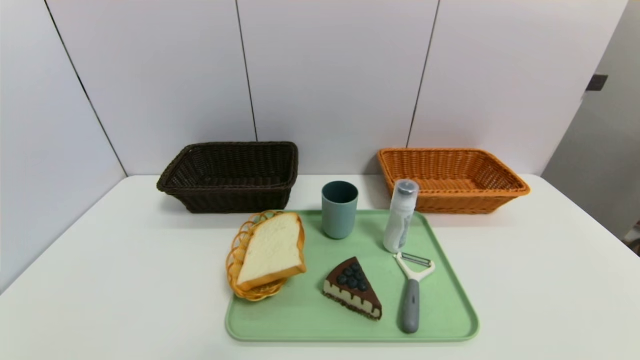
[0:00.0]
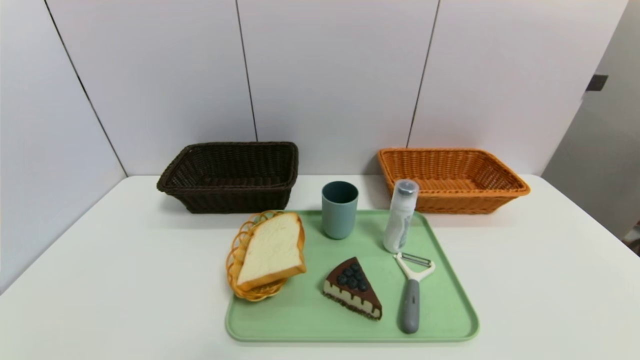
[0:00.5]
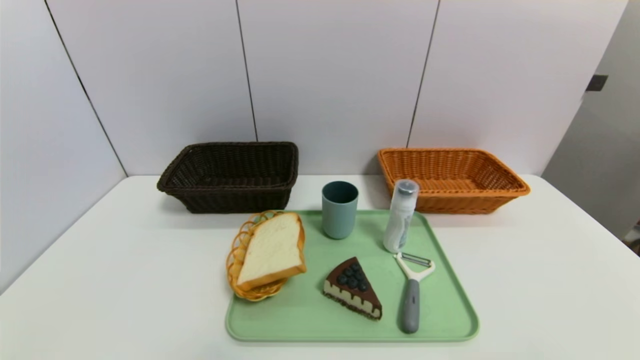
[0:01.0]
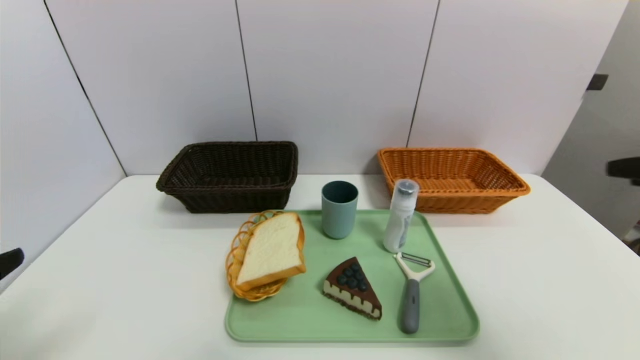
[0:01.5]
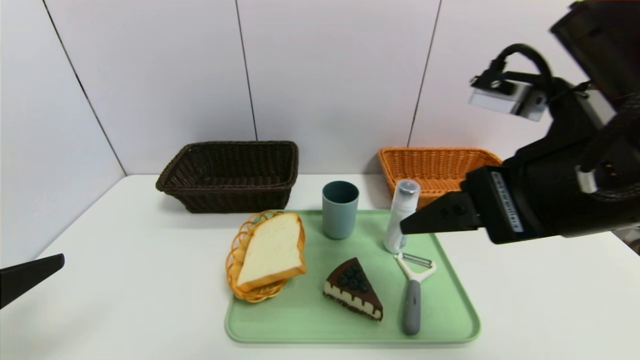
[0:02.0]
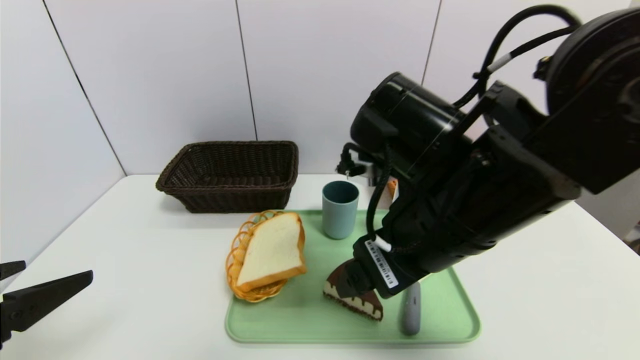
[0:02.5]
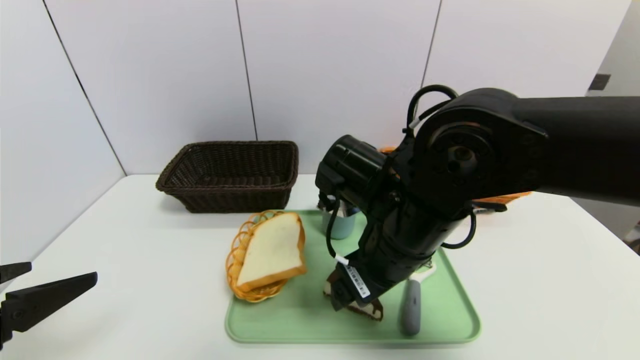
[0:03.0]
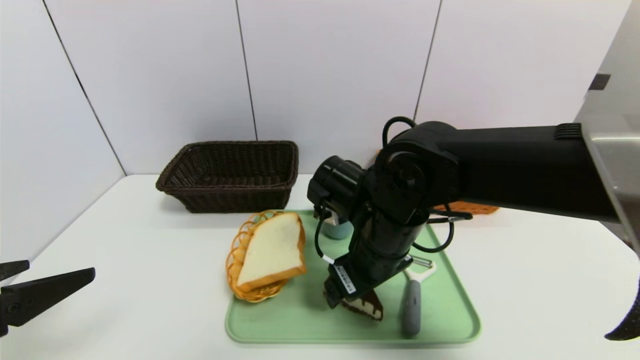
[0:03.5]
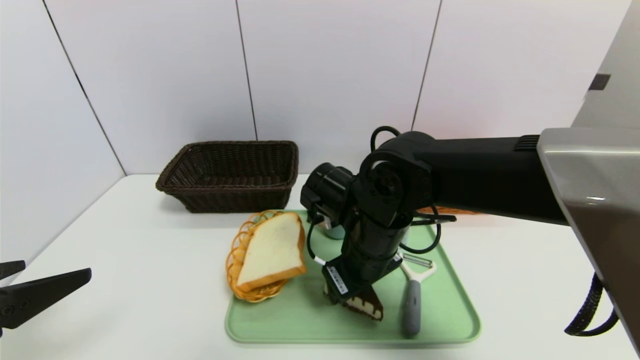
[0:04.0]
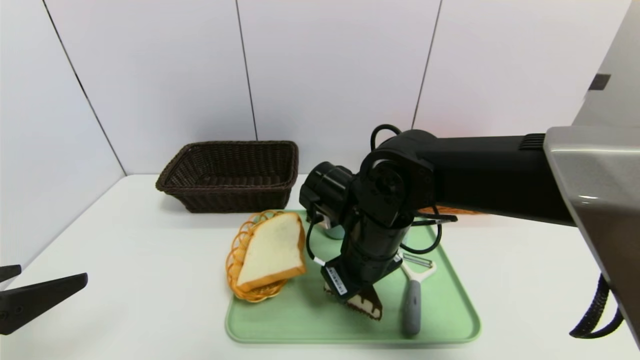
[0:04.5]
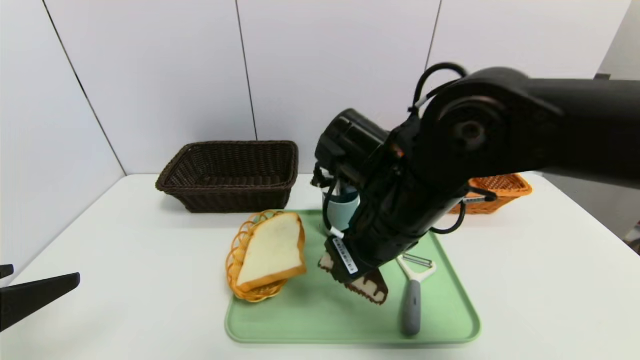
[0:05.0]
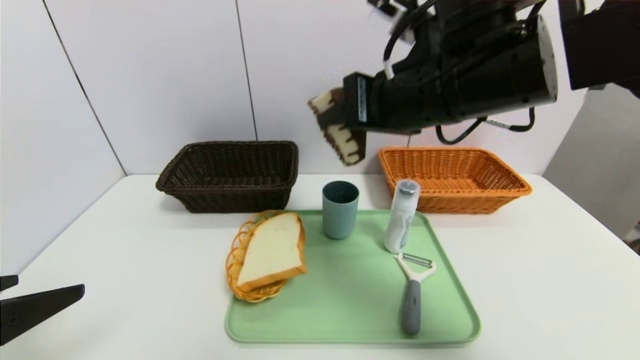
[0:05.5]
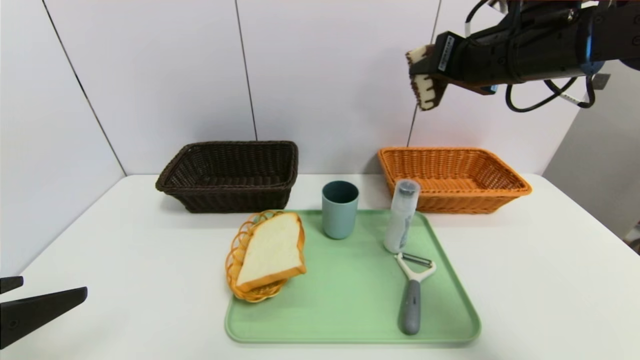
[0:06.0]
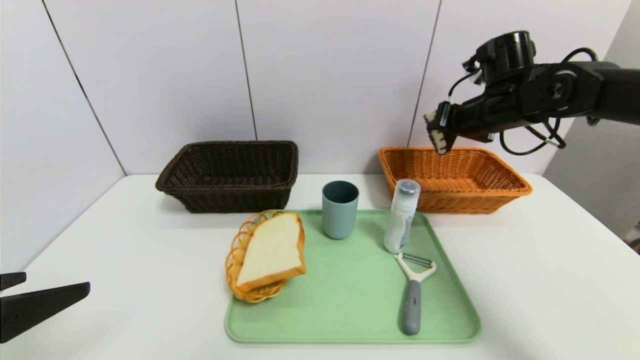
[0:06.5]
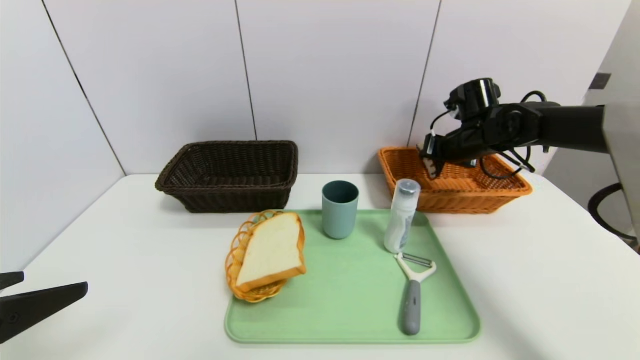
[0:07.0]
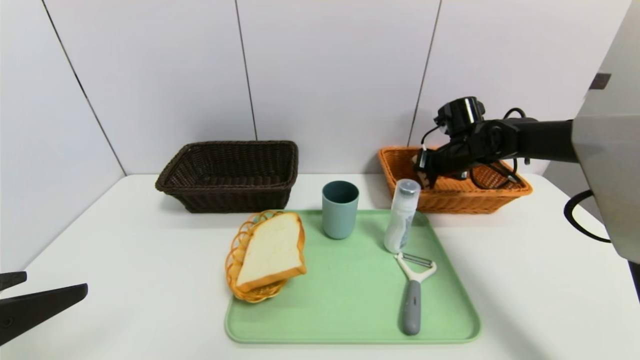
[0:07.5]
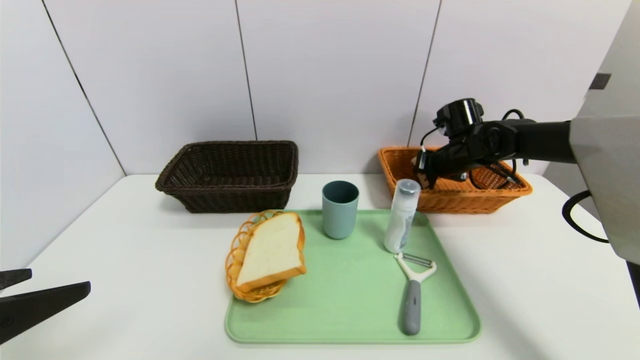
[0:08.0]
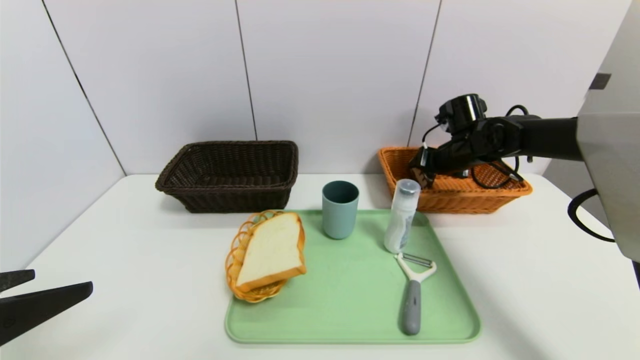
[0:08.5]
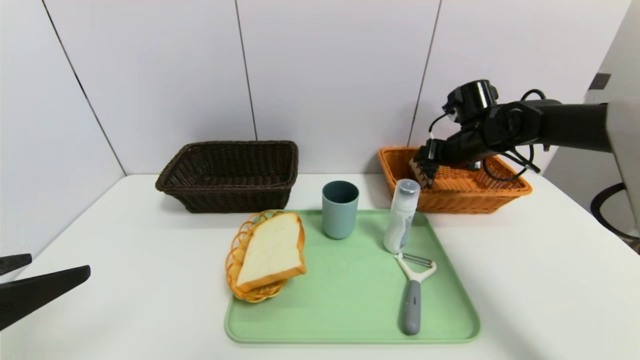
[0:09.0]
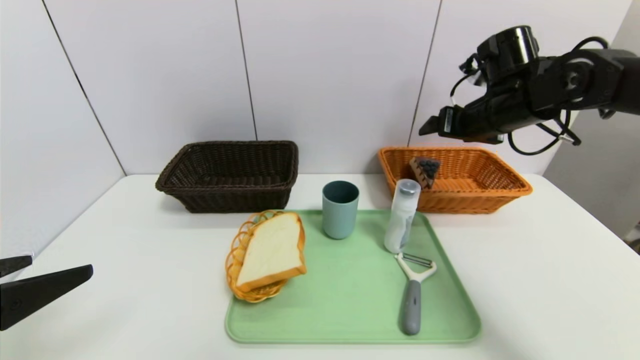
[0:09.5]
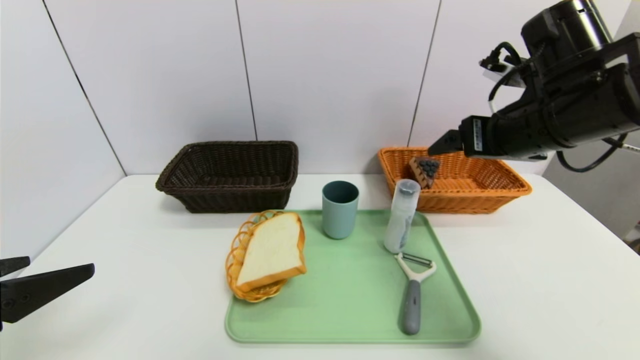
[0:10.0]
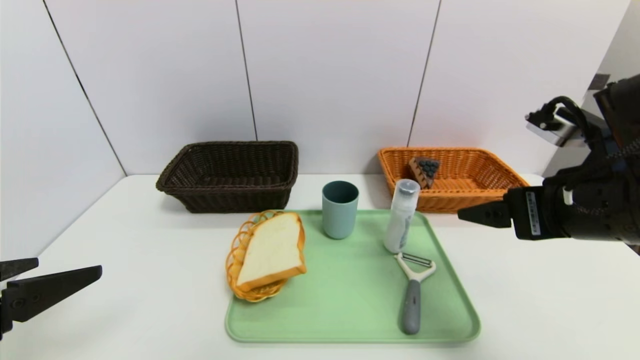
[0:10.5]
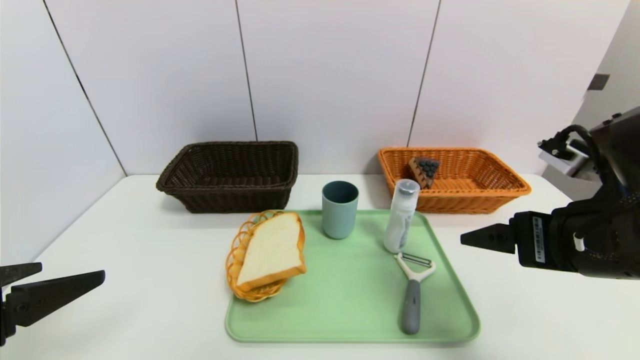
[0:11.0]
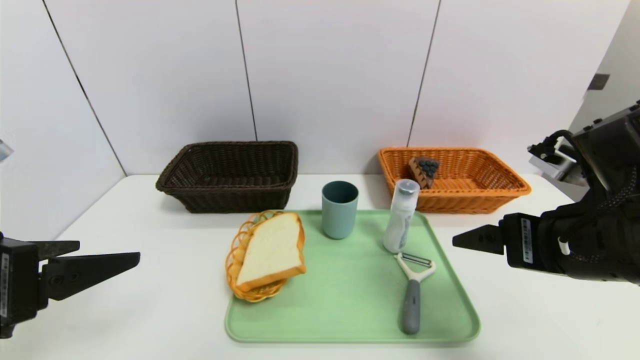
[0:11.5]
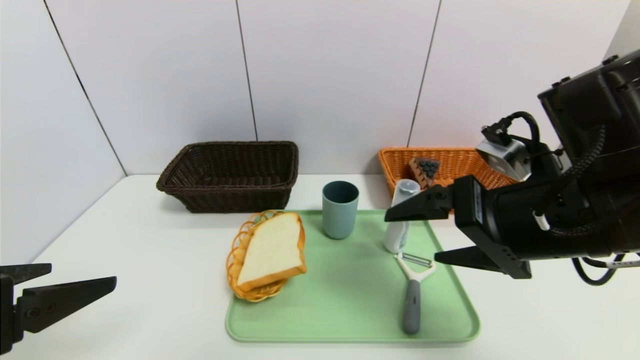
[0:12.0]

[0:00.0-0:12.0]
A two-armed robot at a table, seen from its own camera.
Task of the whole recording: place the food in the right basket with the right gripper, and place the non food items in the left basket with the left gripper.
Step, 0:00.0 to 0:08.5: Grasp the triangle cake and put it in the right basket.
0:00.0 to 0:02.0: The right gripper is displaced upward, forward and to the left by approximately 35 cm. The left gripper goes about 20 cm upward and forward.
0:02.0 to 0:04.0: The right gripper moves downward, to the left and forward, about 20 cm.
0:04.0 to 0:06.0: The right gripper shifts about 25 cm upward and to the right.
0:06.0 to 0:08.0: The right gripper shifts about 25 cm downward and forward.
0:08.0 to 0:10.0: The right gripper moves backward and upward, approximately 25 cm, and opens its fingers.
0:10.0 to 0:12.0: The right gripper moves backward, some 10 cm.

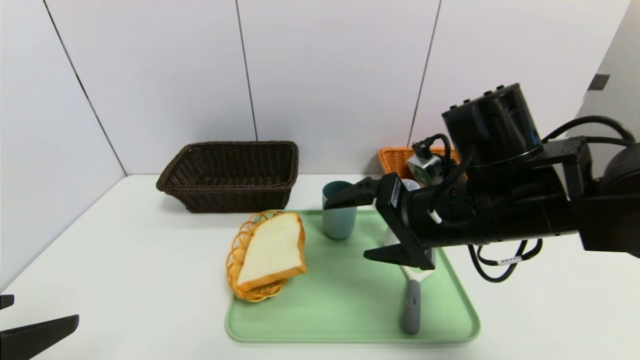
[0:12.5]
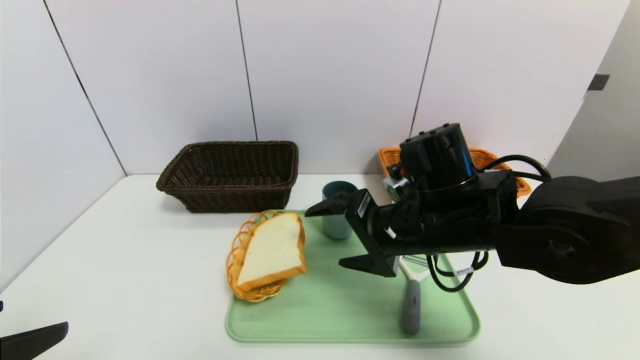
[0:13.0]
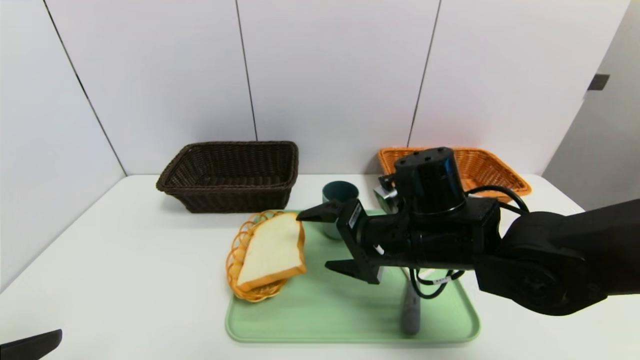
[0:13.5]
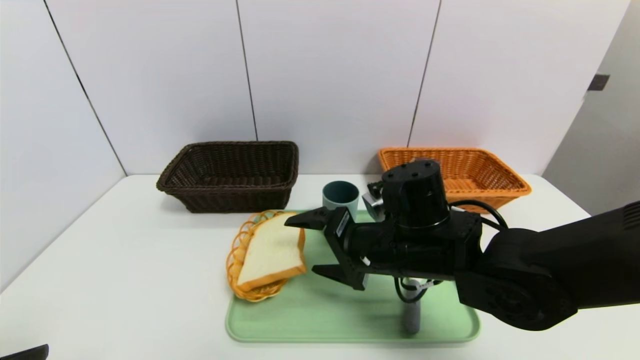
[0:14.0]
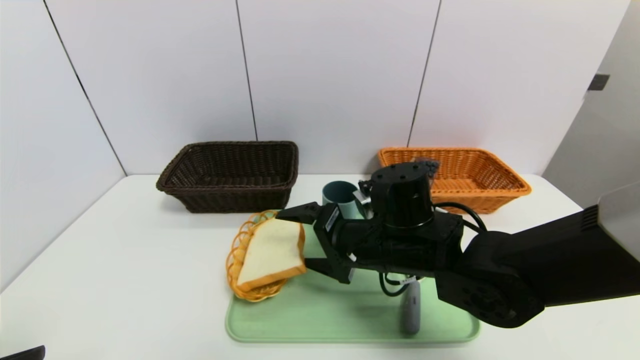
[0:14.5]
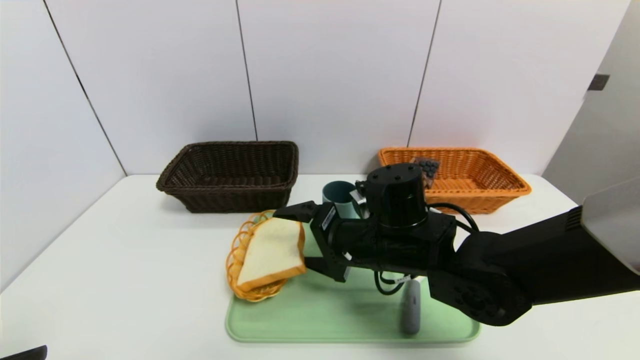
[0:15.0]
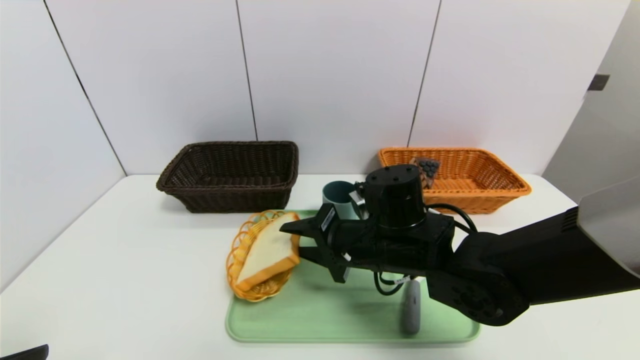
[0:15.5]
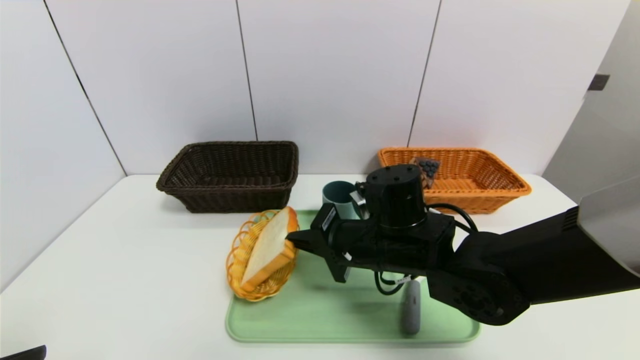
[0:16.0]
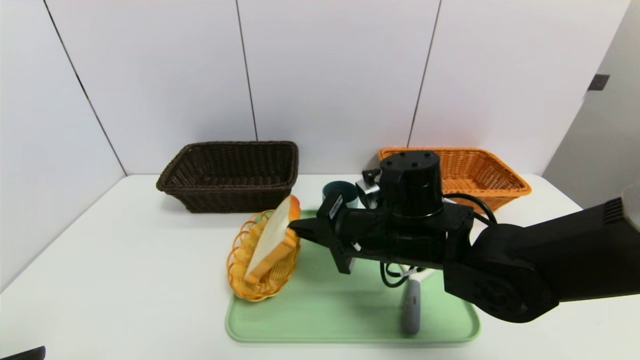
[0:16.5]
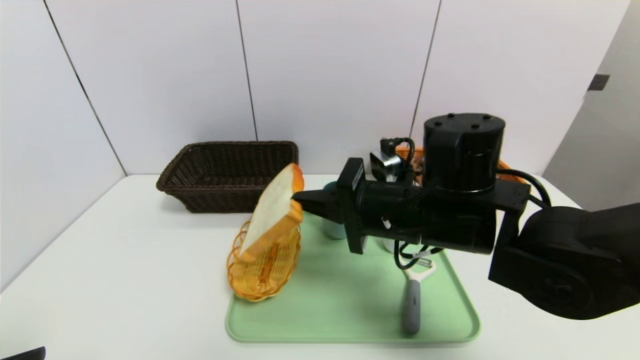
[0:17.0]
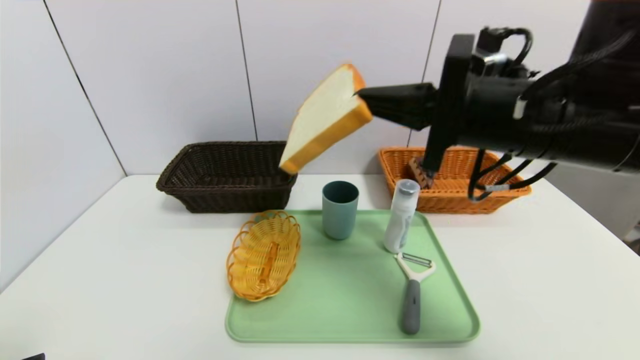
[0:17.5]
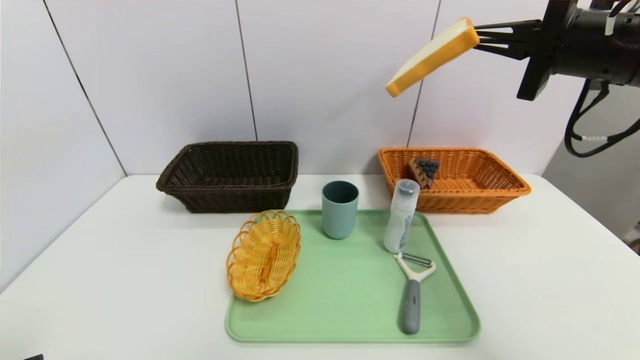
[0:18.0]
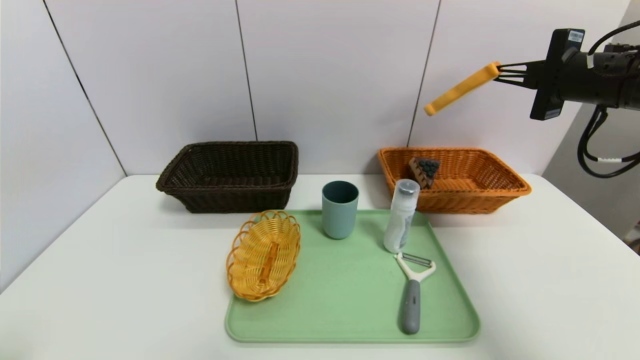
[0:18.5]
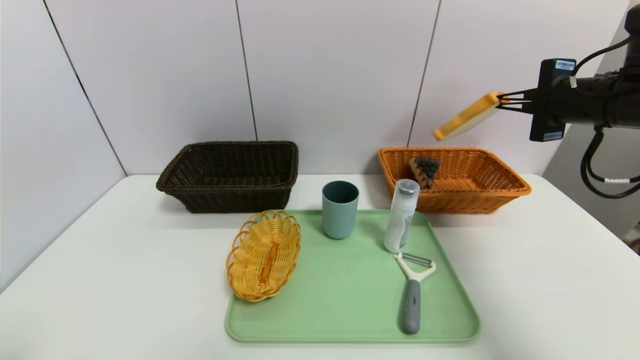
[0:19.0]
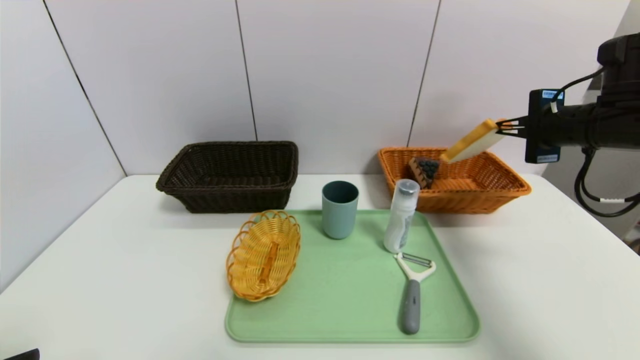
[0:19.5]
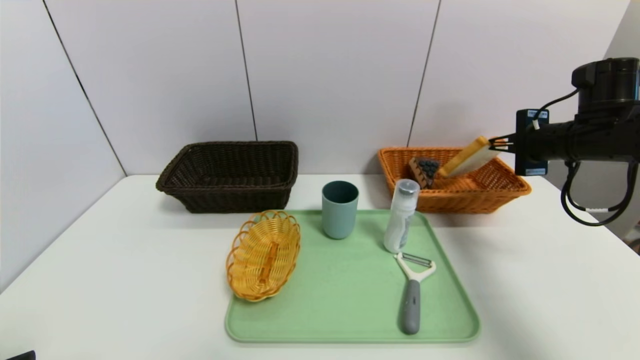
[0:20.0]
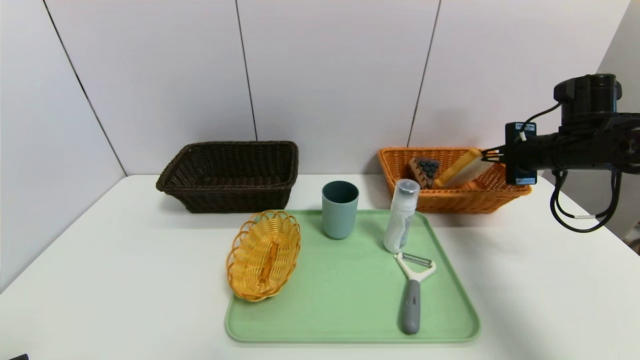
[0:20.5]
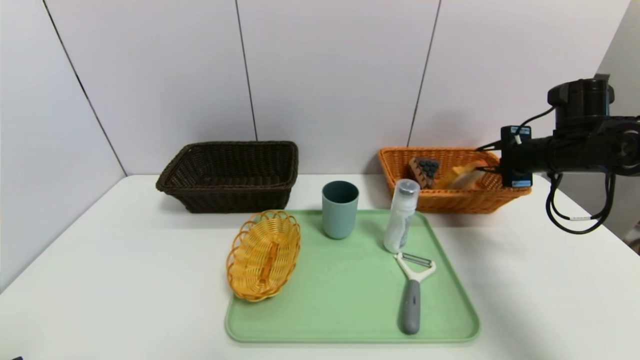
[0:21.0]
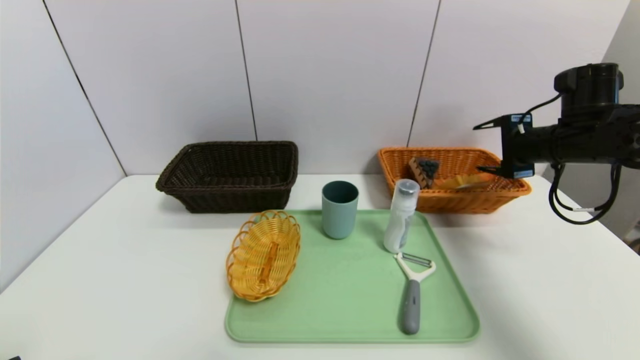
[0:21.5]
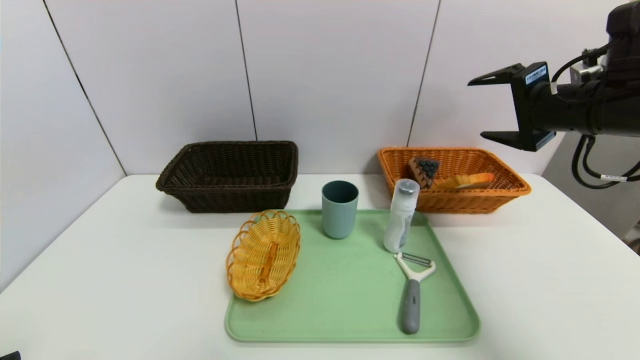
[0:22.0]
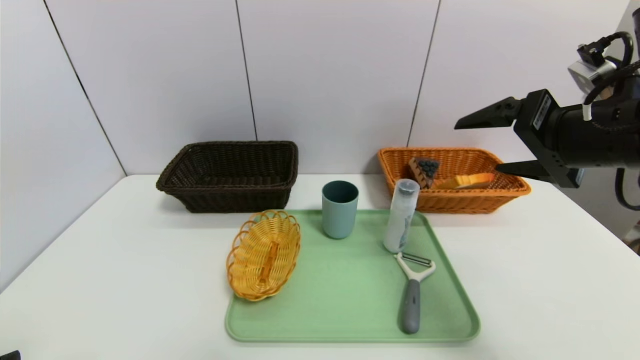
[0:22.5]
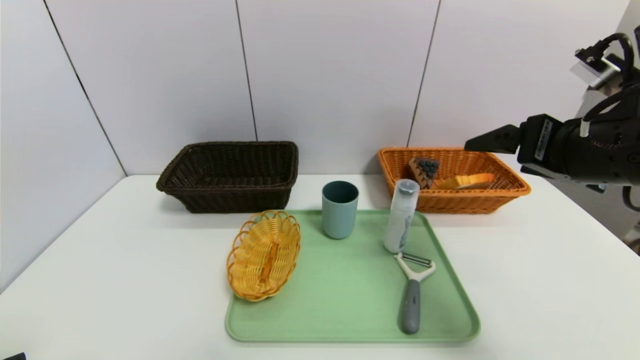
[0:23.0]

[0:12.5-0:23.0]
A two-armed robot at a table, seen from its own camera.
Task of the whole recording: place the food in the right basket with the right gripper, and place the non food items in the left basket with the left gripper.
Step, 0:12.5 to 0:21.0: Grasp the bread slice and put it in the right basket.
0:12.5 to 0:14.5: The right gripper is displaced downward and to the left by roughly 10 cm.
0:14.5 to 0:16.5: The right gripper closes up.
0:16.5 to 0:19.0: The right gripper is displaced to the right and upward by about 30 cm.
0:19.0 to 0:21.0: The right gripper heads downward and forward, covering approximately 10 cm.
0:21.0 to 0:23.0: The right gripper is displaced backward, to the left and upward by some 20 cm, and opens its fingers.
